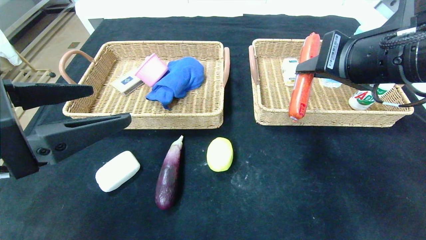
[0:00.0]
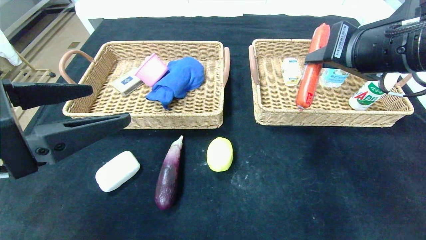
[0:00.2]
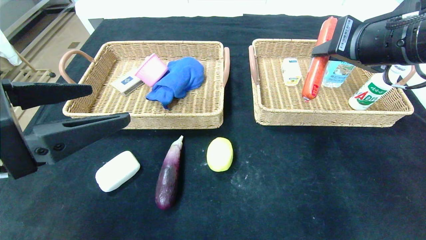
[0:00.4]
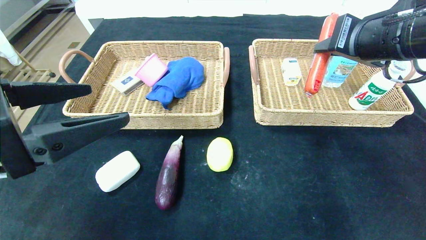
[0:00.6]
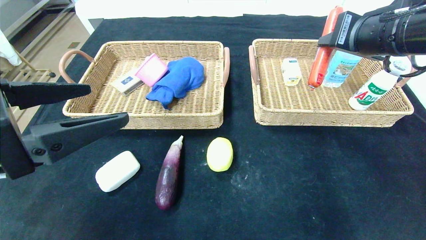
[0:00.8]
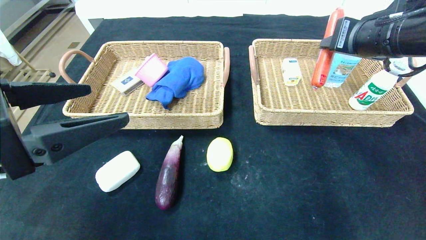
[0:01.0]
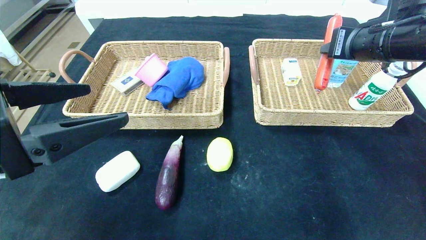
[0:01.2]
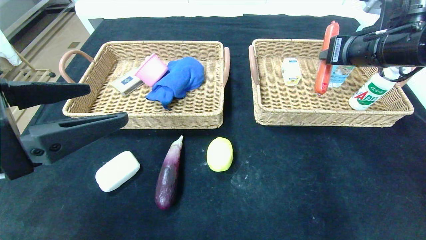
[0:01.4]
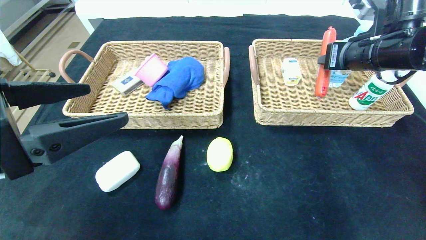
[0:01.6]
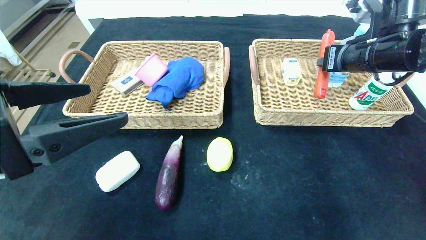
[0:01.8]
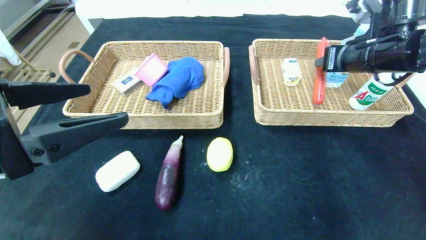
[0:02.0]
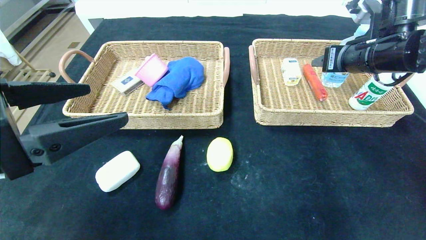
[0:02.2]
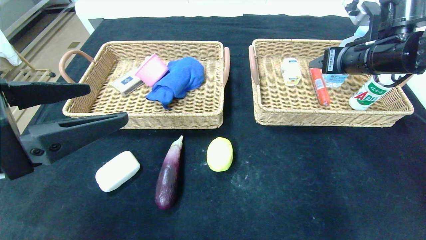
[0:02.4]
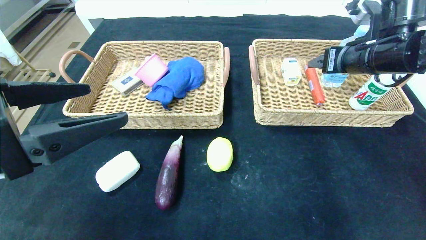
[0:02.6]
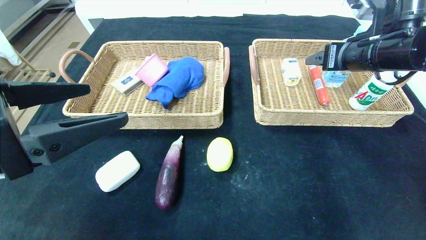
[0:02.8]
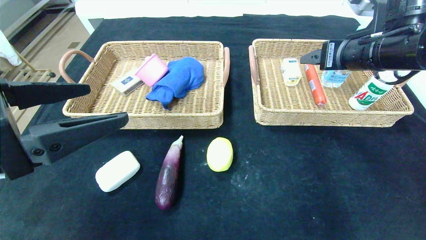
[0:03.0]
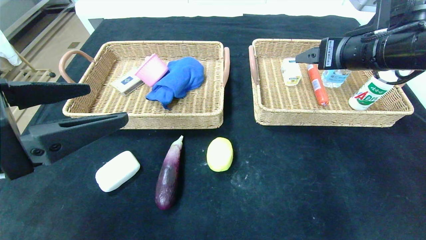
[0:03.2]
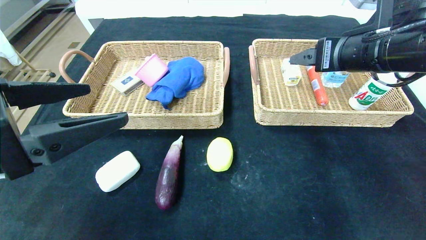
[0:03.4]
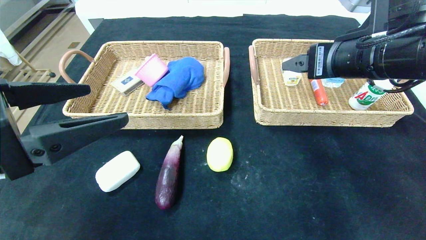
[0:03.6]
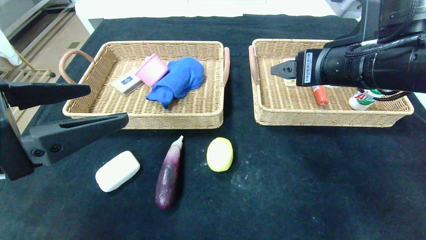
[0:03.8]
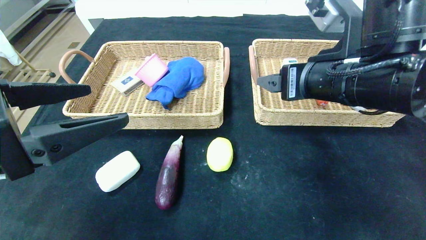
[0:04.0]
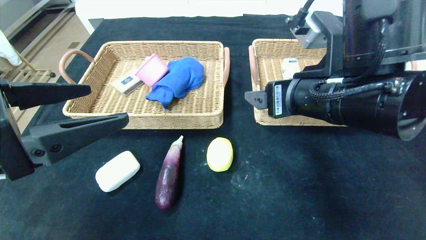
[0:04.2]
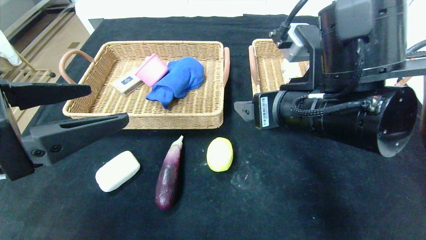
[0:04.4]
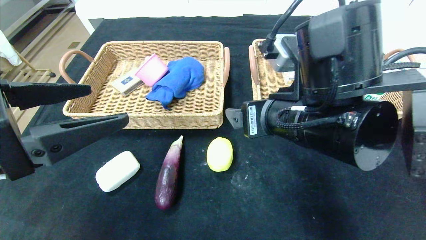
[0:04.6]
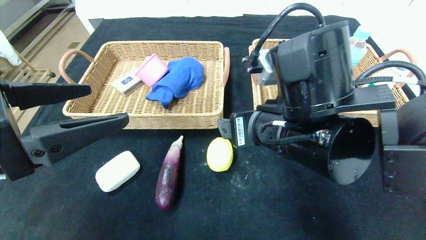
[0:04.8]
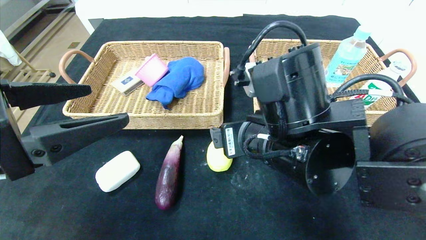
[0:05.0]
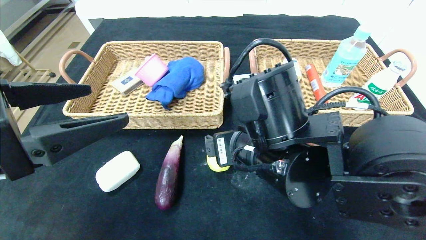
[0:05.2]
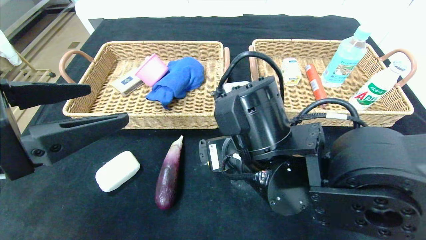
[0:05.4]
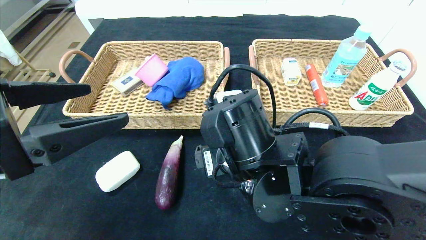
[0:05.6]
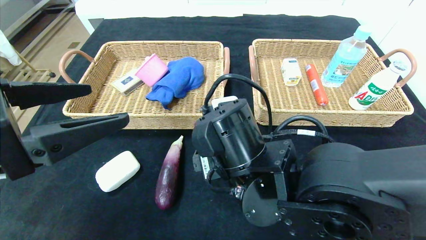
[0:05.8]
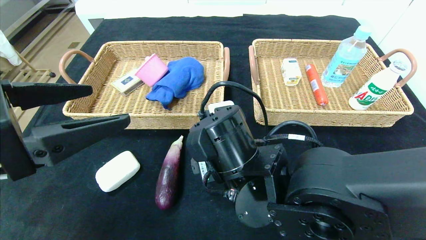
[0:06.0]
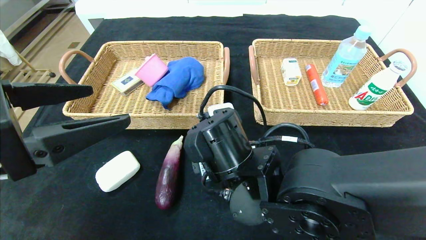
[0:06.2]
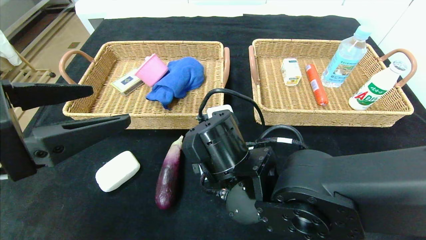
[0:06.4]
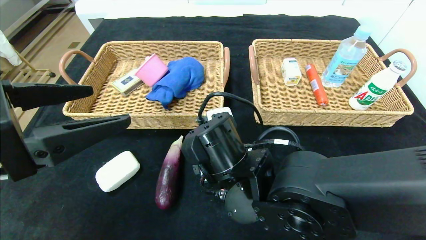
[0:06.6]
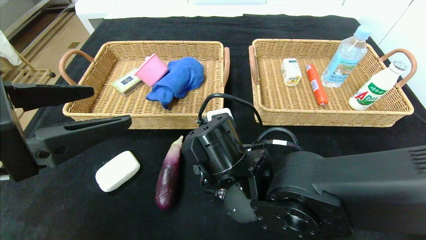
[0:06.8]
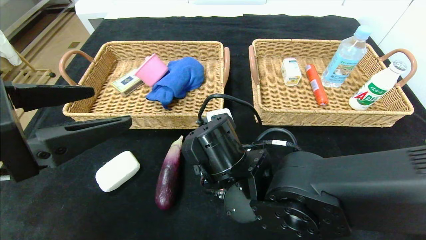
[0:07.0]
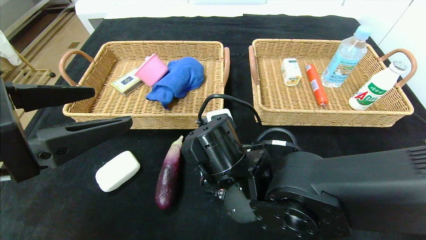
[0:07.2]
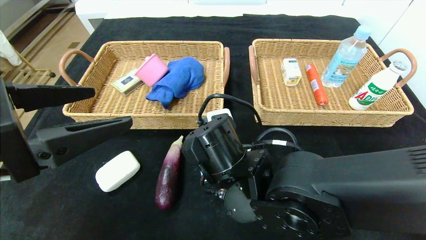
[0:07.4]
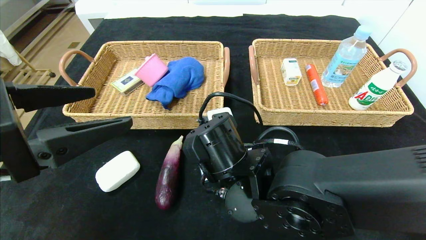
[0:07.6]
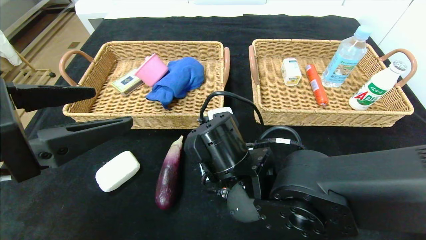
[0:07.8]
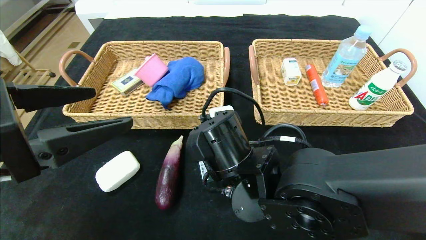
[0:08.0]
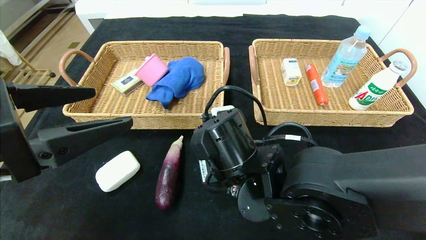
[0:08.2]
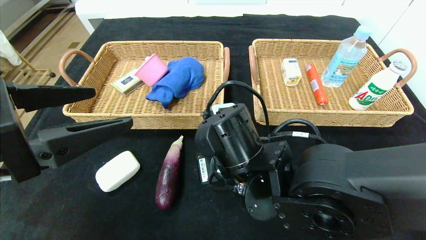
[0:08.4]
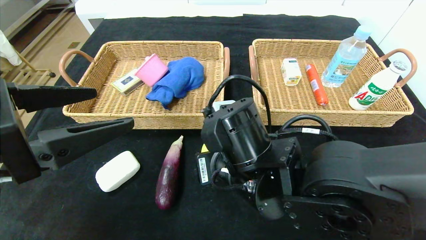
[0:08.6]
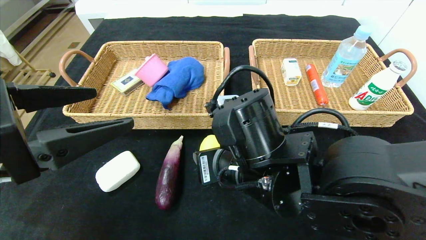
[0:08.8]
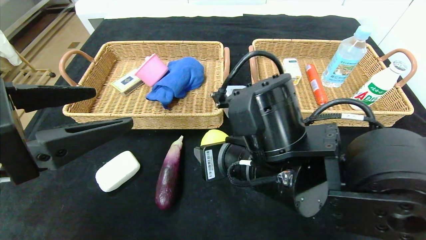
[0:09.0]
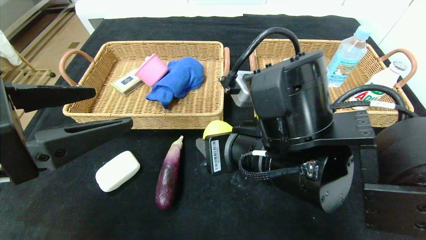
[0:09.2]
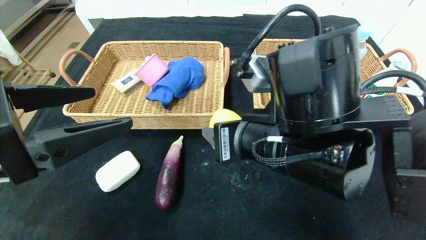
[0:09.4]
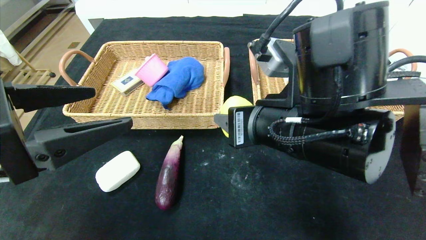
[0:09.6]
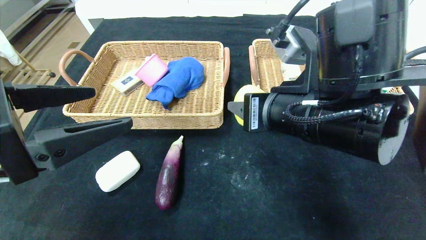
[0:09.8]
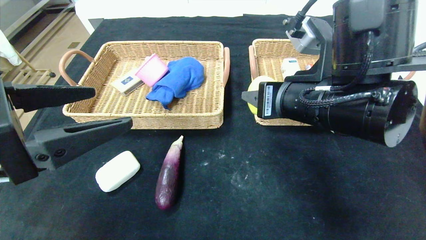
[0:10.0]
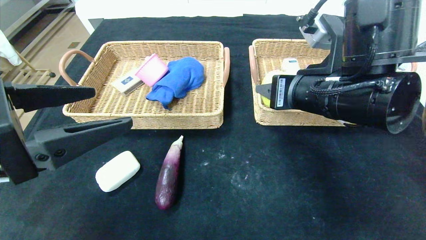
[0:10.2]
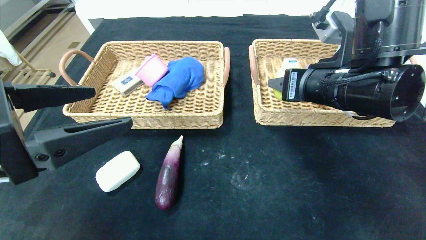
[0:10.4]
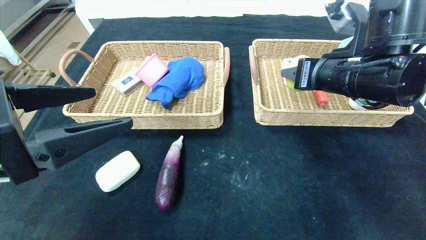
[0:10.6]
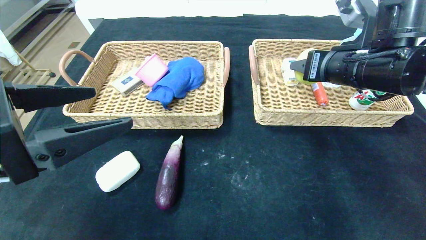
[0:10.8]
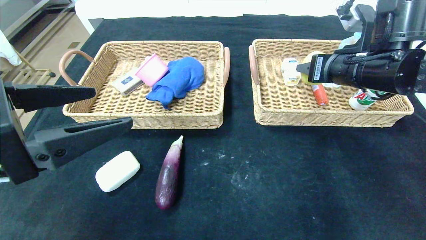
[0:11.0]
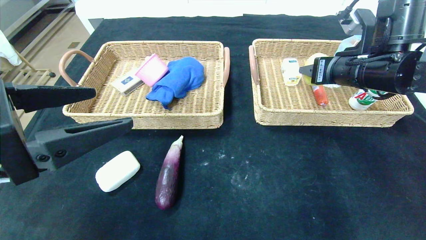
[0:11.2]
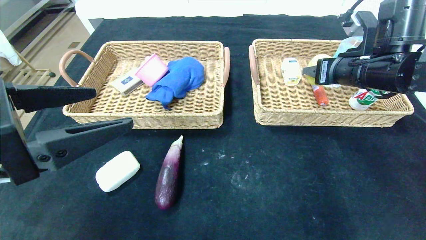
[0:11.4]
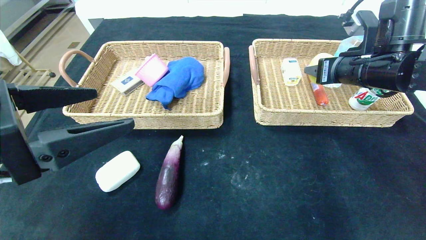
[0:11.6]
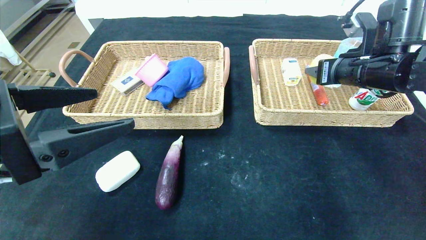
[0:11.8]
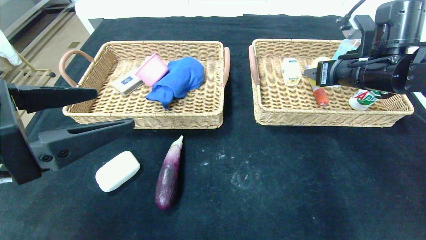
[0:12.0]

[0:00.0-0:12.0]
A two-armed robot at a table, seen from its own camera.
Step, 0:00.0 to 0:03.0: Grasp the sausage and put it in the right basket.
0:00.0 to 0:01.6: The right gripper travels forward and to the right by roughly 10 cm.
0:01.6 to 0:03.0: The right gripper opens up.
0:03.0 to 0:04.4: The right gripper heads to the left, backward and downward, covering roughly 15 cm.
0:04.4 to 0:06.0: The right gripper goes roughly 15 cm to the left and downward.
0:06.0 to 0:07.6: The right gripper closes up.
0:07.6 to 0:09.0: The right gripper heads upward, covering roughly 5 cm.
0:09.0 to 0:10.4: The right gripper moves to the right, upward and forward, about 15 cm.
0:10.4 to 0:12.0: The right gripper goes some 10 cm to the right and forward.

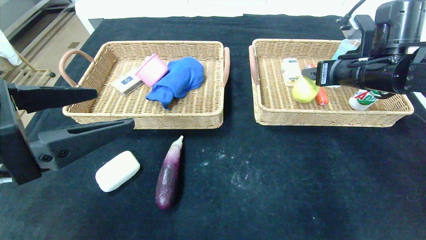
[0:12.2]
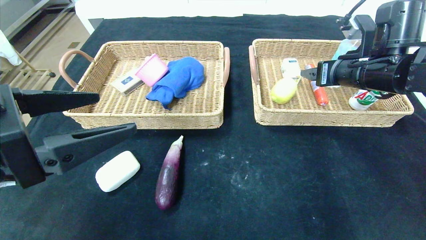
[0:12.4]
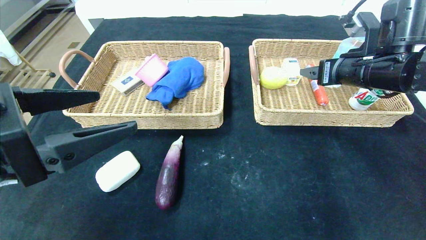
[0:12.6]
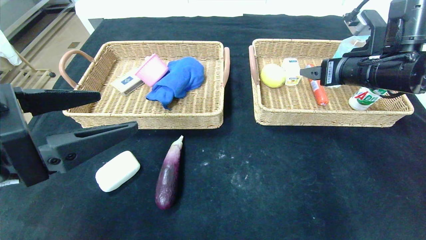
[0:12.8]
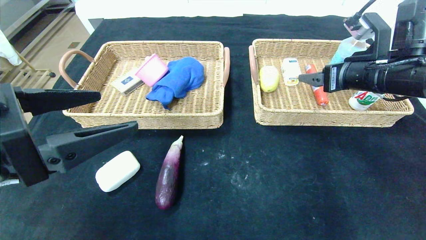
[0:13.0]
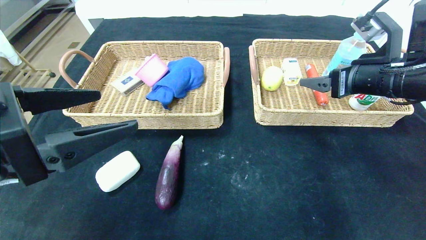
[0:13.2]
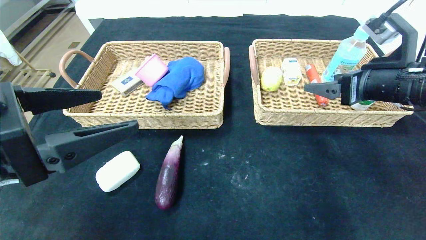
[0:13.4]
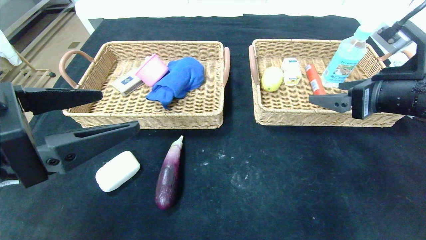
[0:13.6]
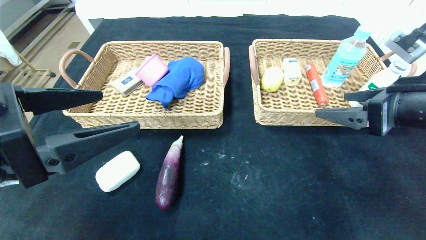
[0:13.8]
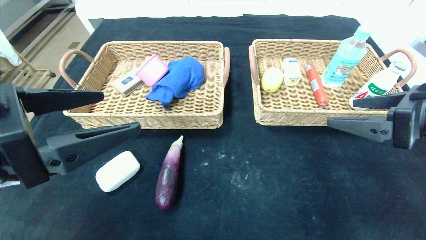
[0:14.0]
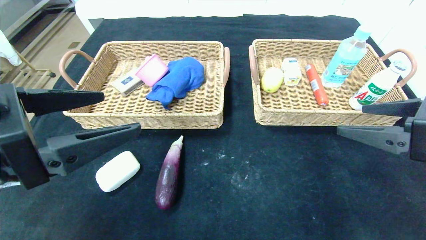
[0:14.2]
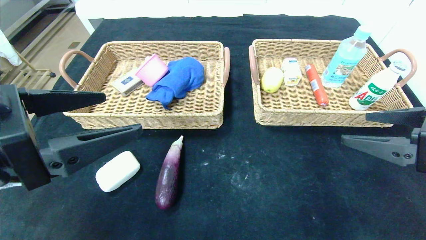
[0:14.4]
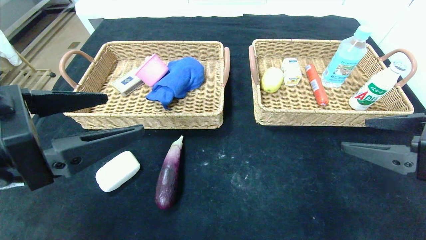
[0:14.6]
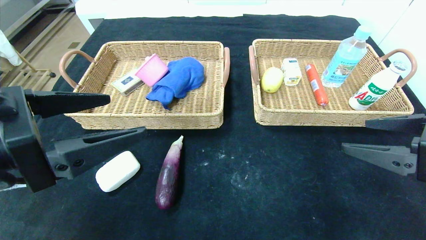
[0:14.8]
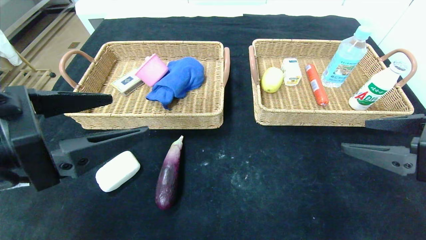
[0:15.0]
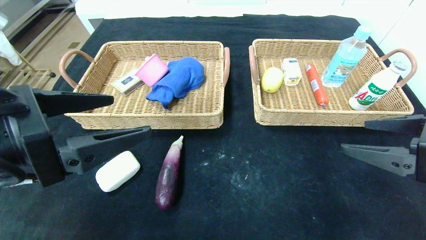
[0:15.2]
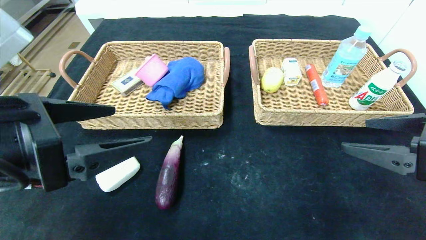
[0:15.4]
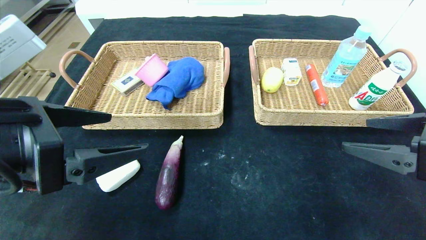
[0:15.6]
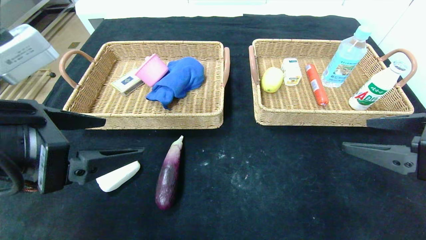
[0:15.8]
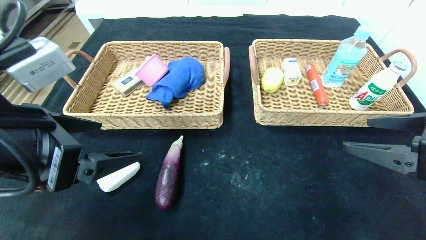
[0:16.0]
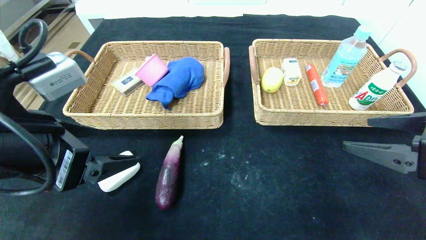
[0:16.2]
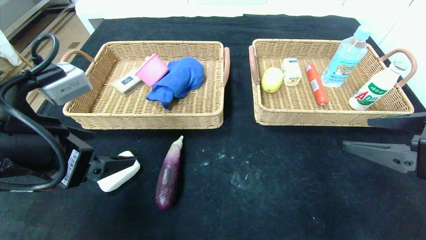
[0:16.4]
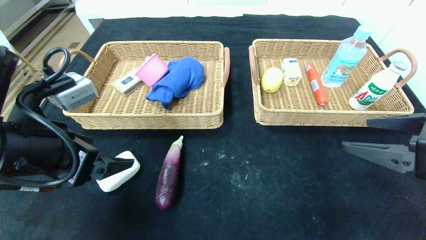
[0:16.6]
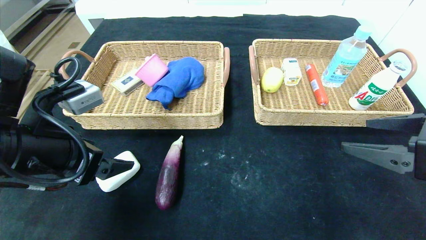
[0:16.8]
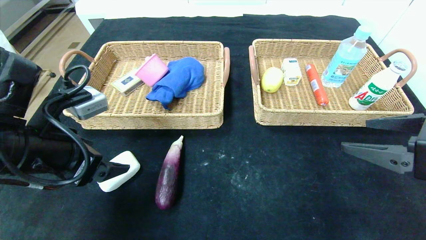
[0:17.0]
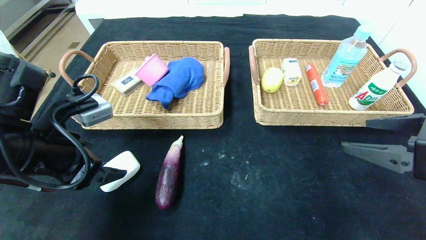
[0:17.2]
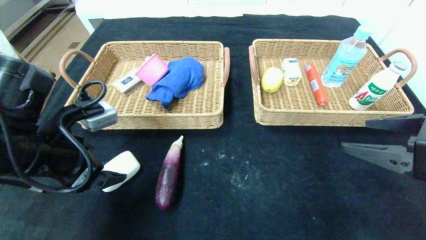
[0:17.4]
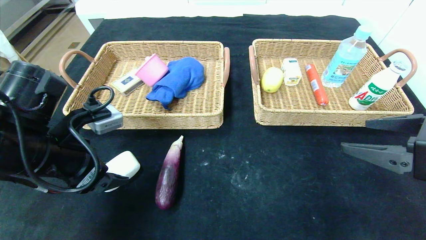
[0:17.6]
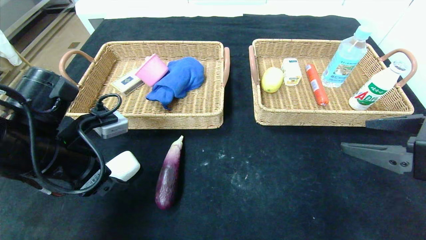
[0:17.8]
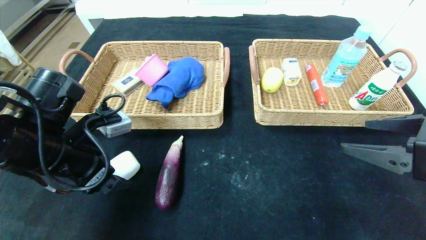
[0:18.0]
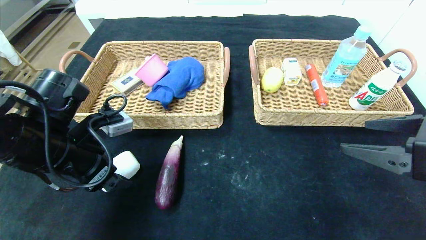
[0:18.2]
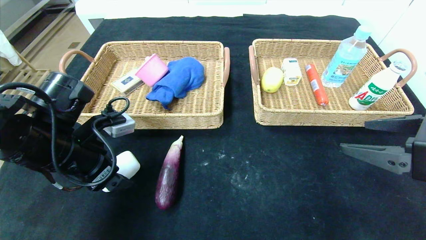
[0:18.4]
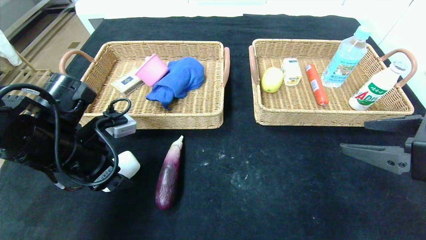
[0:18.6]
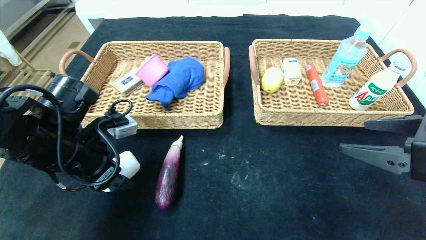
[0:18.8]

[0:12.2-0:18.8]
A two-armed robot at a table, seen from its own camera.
0:12.2 to 0:13.8: The right gripper goes some 10 cm backward.
0:13.8 to 0:15.4: The right gripper travels backward by roughly 5 cm.
0:15.4 to 0:17.2: The left gripper goes approximately 5 cm forward.
0:17.2 to 0:18.8: The left gripper shifts by roughly 5 cm.
